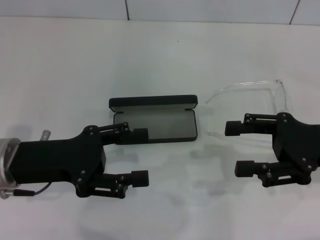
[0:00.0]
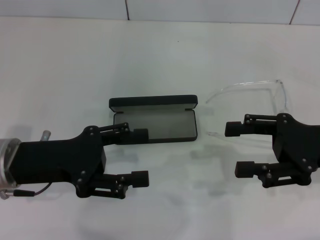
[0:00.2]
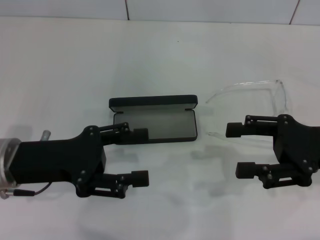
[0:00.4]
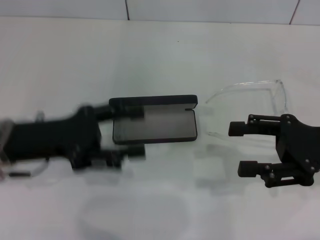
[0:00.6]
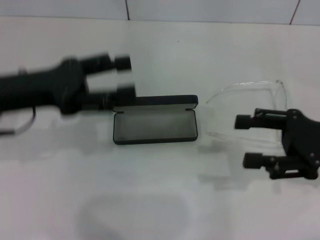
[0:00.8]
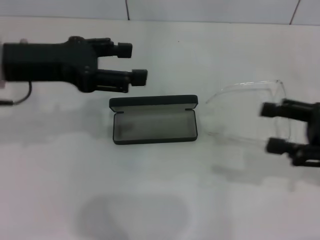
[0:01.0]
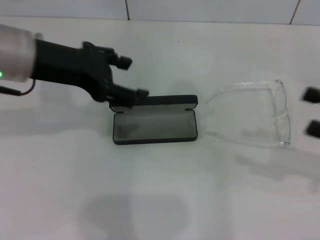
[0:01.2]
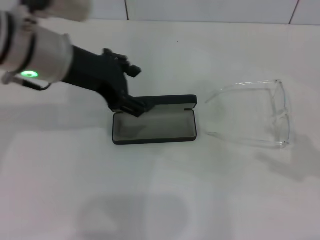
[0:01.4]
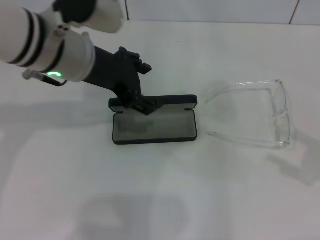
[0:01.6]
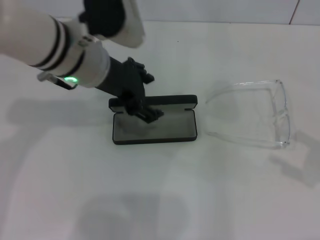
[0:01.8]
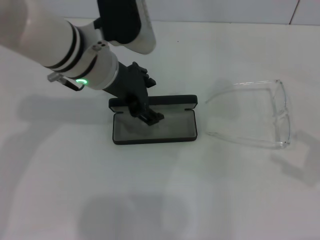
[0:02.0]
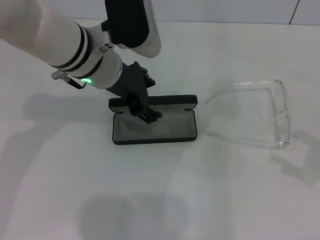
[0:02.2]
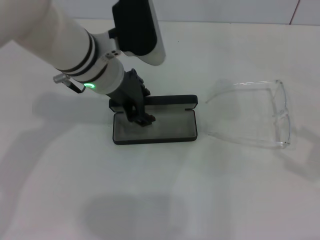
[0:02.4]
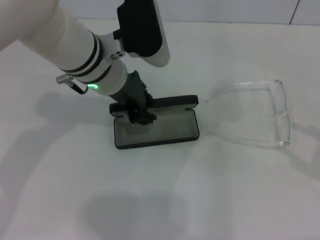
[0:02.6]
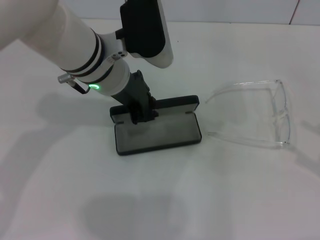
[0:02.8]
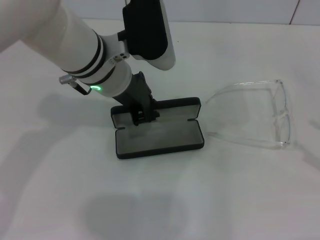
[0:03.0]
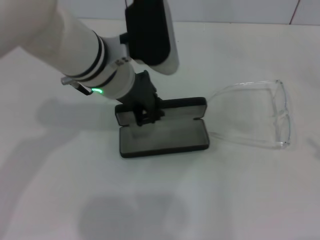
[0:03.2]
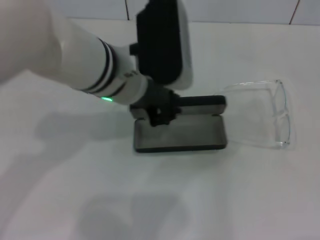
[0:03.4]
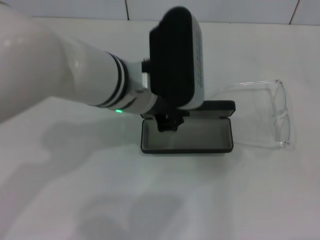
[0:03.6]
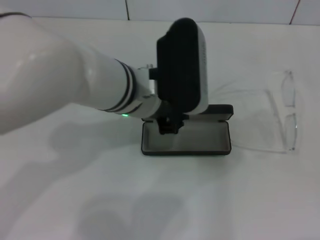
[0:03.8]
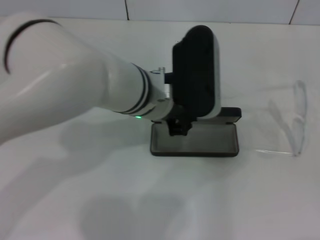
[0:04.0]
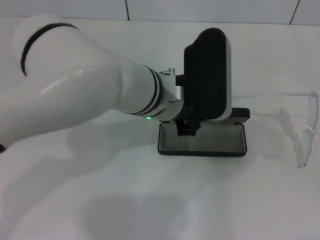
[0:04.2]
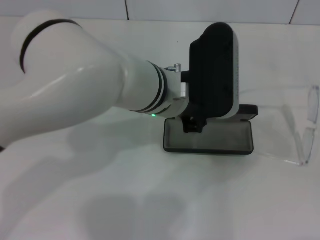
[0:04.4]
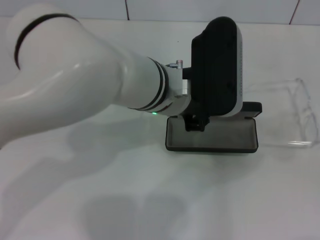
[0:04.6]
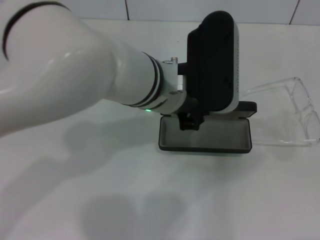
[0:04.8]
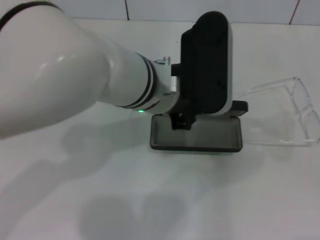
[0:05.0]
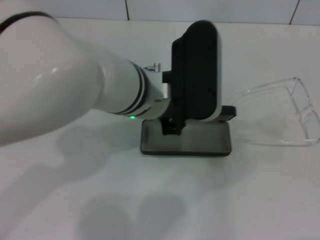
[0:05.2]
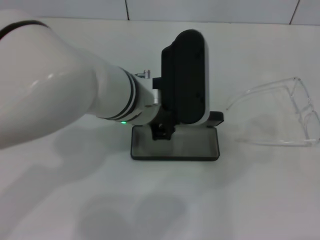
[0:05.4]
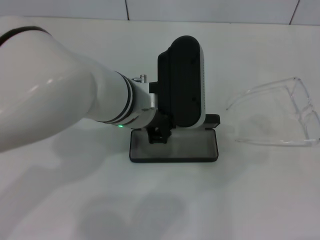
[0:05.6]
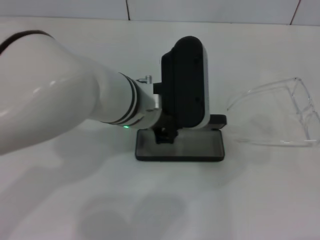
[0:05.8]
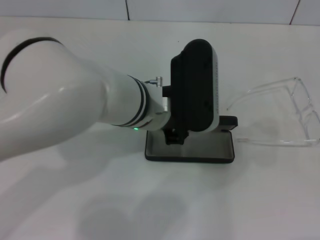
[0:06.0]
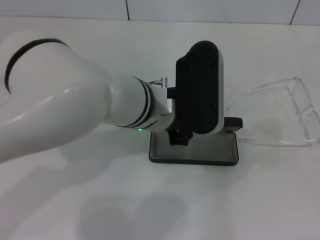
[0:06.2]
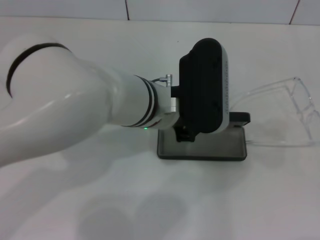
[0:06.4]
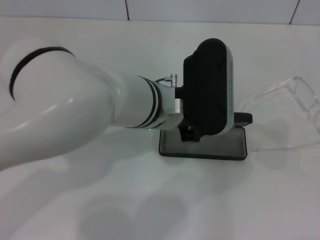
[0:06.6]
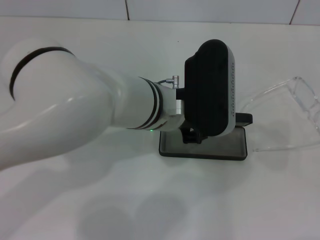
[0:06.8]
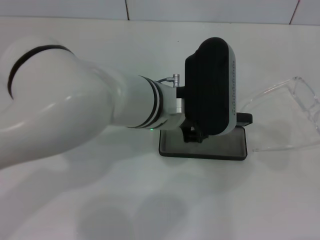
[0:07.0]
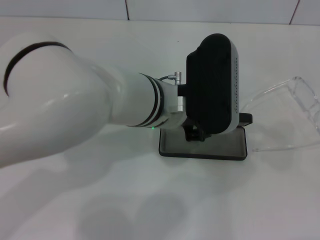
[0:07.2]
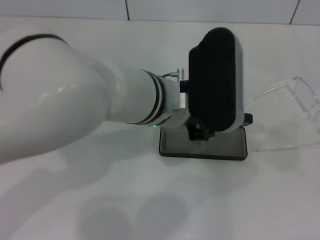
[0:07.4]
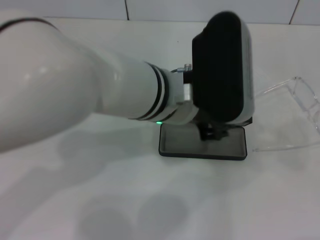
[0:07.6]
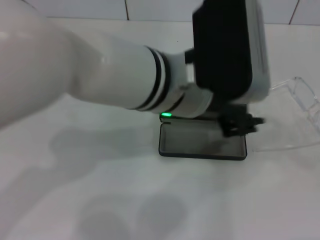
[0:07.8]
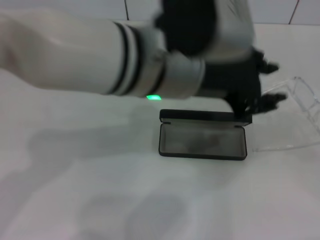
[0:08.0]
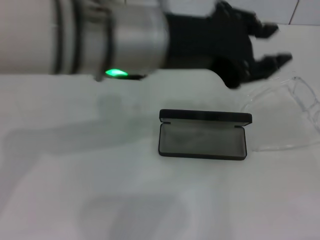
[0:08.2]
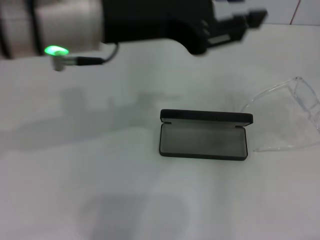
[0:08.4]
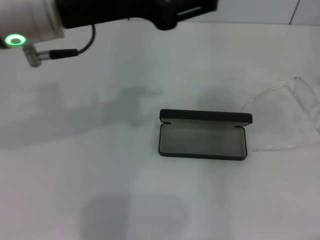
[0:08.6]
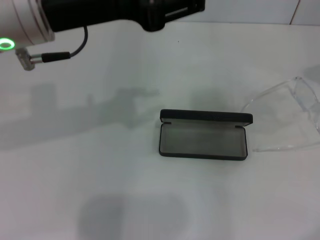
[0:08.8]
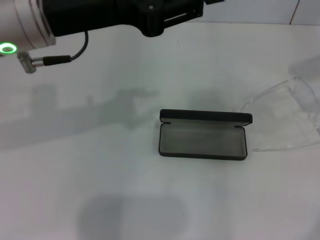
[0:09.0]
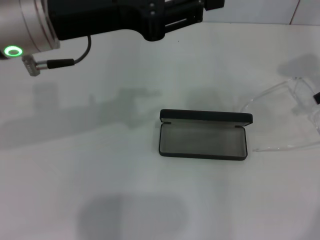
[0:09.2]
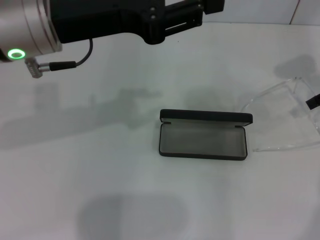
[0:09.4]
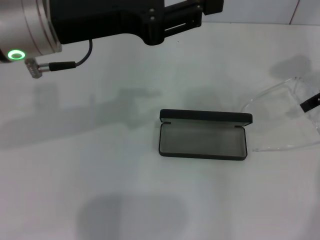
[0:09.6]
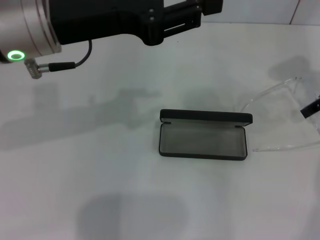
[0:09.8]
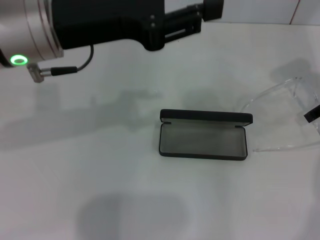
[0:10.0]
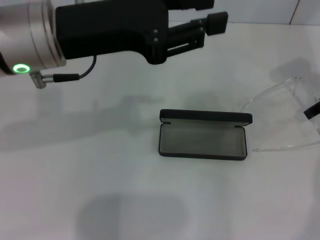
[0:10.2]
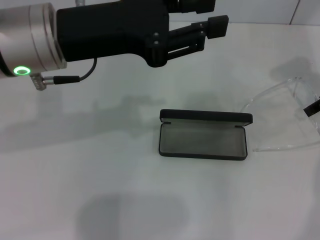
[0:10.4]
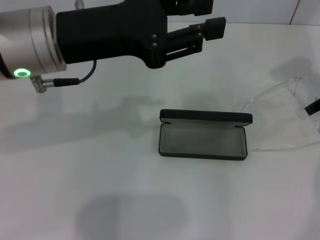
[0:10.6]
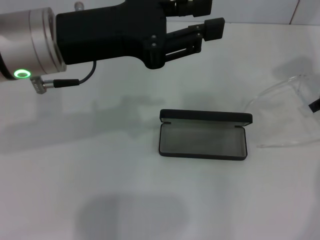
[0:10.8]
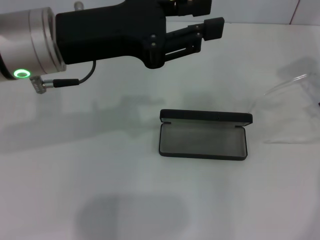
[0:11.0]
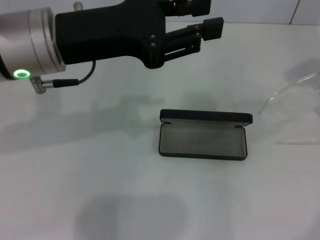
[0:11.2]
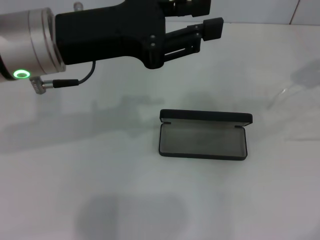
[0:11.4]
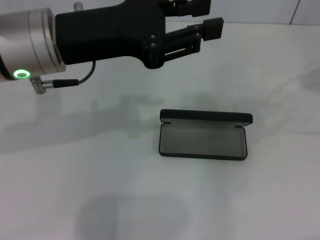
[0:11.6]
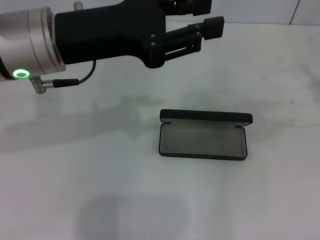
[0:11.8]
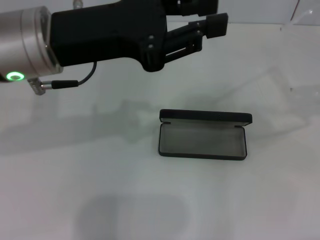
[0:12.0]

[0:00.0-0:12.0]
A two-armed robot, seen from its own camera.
Step, 0:00.0 to 0:02.8: Grab the glasses case with your left hand.
Step, 0:03.0 to 0:06.8: Place the glasses case in the center of the table with your left hand.
Step, 0:07.0 to 0:10.6: Grab the eyeglass frame with your right hand.
0:00.0 to 0:01.6: The right gripper is displaced to the right and backward by roughly 15 cm, while the left gripper goes approximately 15 cm upward, to the right and forward.
0:01.6 to 0:03.0: The left gripper changes place by roughly 5 cm, and closes up.
0:03.0 to 0:04.4: The left gripper travels to the right by approximately 5 cm, while the right gripper changes place by roughly 5 cm.
0:04.4 to 0:07.6: The grippers move only a little.
0:07.6 to 0:09.0: The right gripper travels forward and to the left by roughly 25 cm; the left gripper is displaced to the left and upward by approximately 15 cm.
0:09.0 to 0:10.4: The right gripper moves downward, approximately 5 cm.
0:10.4 to 0:12.0: The right gripper goes about 15 cm backward, upward and to the right, and closes up.

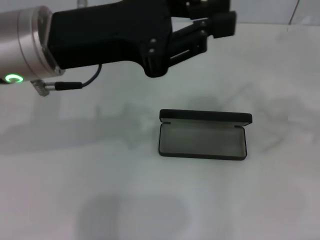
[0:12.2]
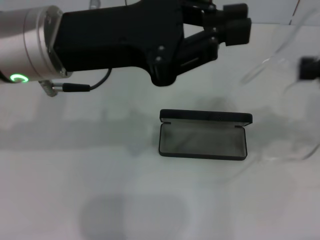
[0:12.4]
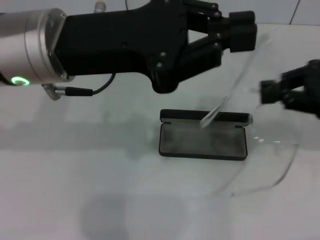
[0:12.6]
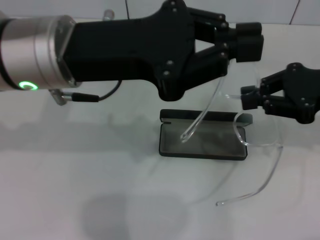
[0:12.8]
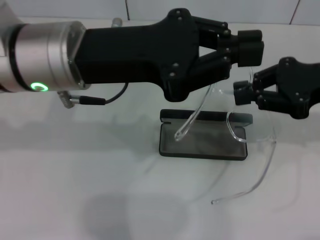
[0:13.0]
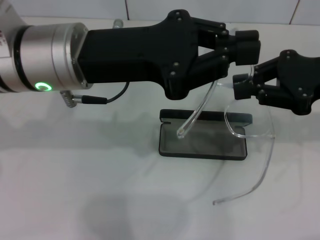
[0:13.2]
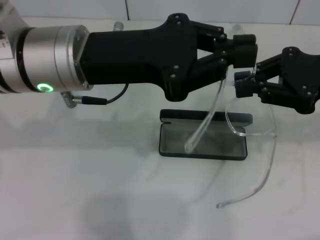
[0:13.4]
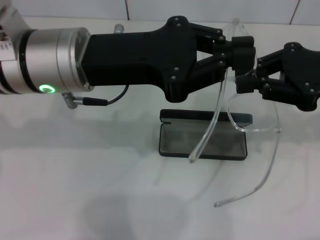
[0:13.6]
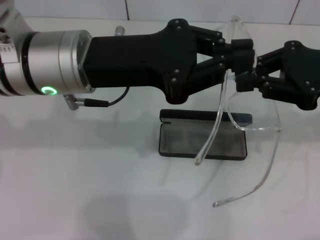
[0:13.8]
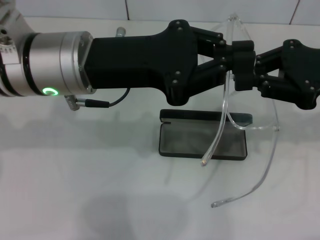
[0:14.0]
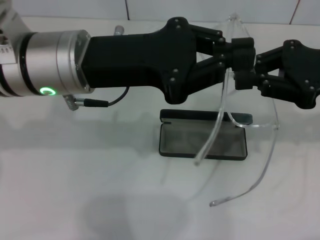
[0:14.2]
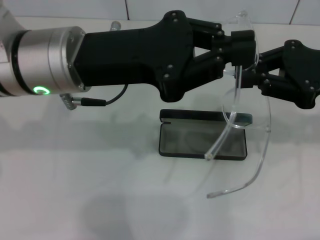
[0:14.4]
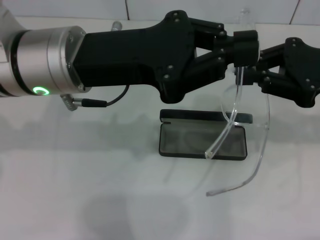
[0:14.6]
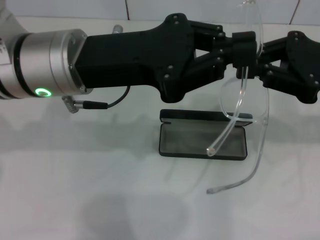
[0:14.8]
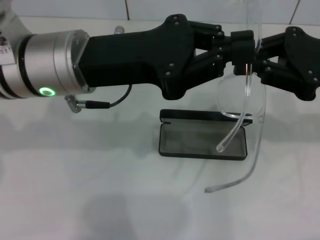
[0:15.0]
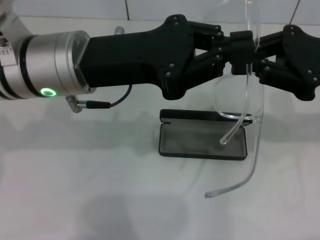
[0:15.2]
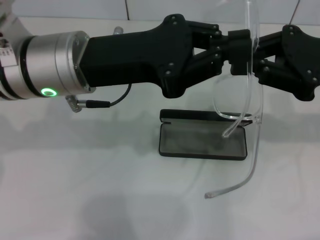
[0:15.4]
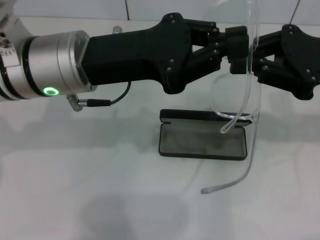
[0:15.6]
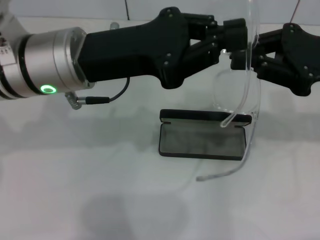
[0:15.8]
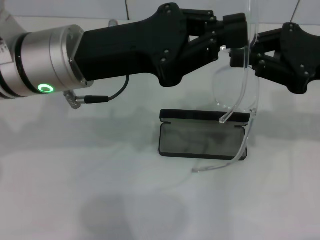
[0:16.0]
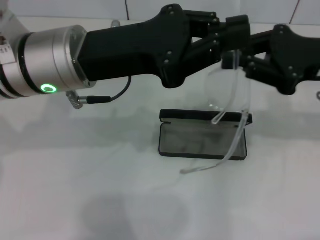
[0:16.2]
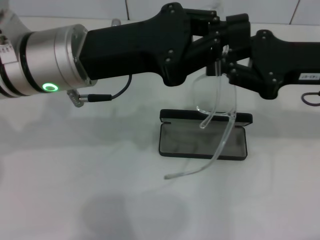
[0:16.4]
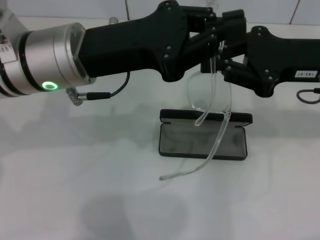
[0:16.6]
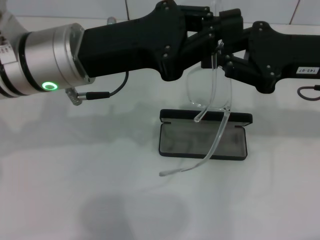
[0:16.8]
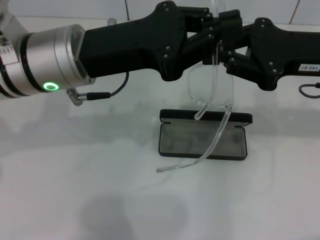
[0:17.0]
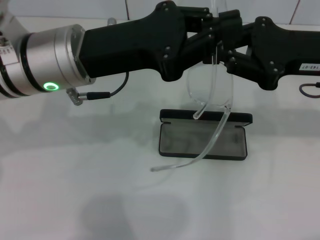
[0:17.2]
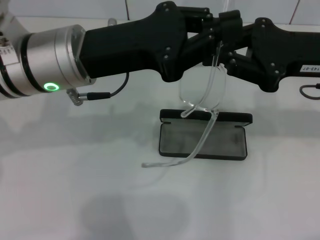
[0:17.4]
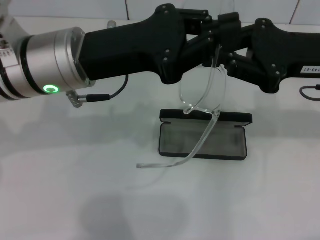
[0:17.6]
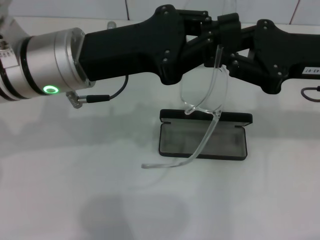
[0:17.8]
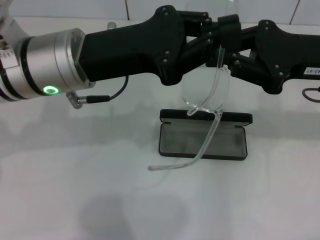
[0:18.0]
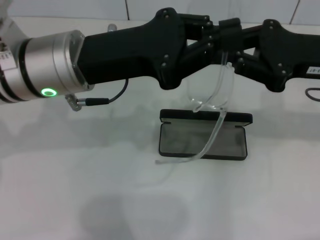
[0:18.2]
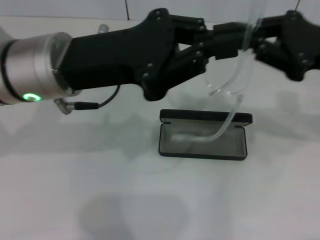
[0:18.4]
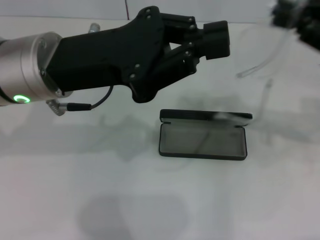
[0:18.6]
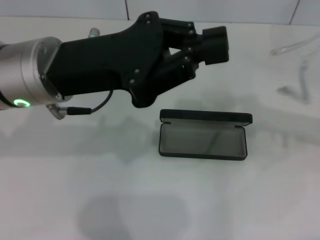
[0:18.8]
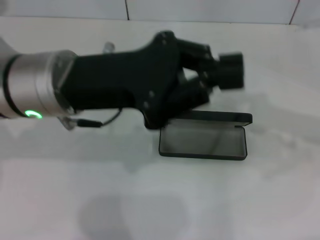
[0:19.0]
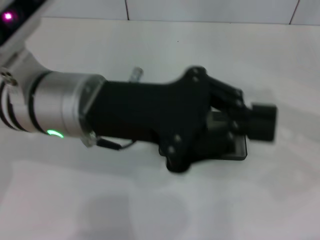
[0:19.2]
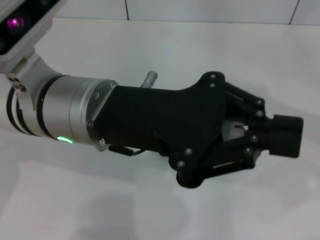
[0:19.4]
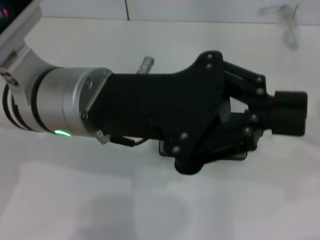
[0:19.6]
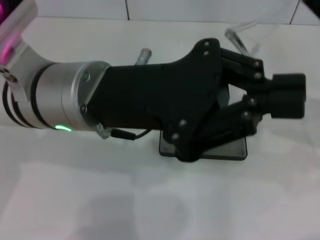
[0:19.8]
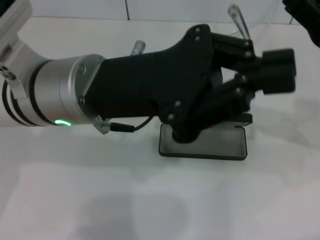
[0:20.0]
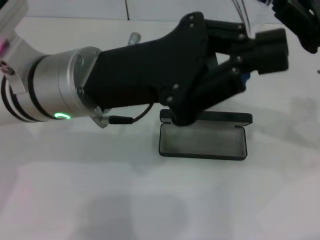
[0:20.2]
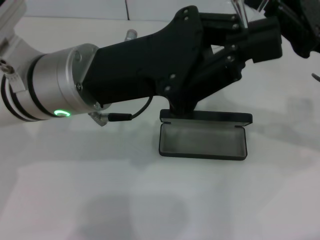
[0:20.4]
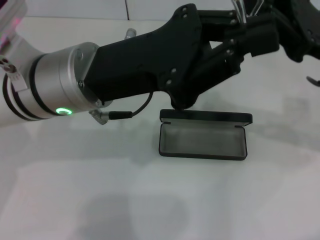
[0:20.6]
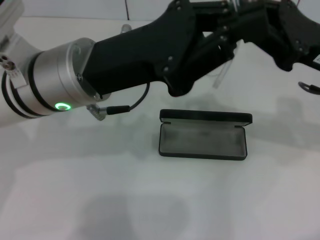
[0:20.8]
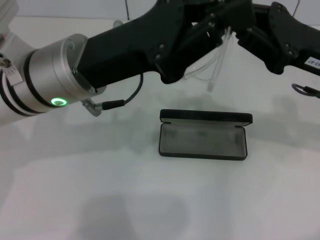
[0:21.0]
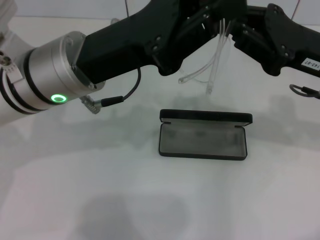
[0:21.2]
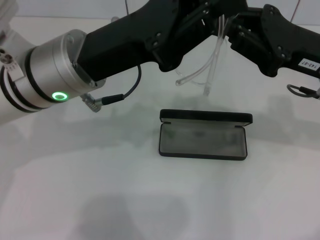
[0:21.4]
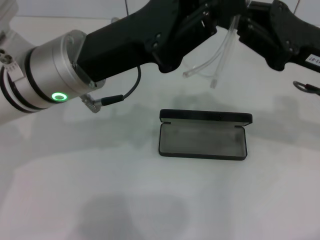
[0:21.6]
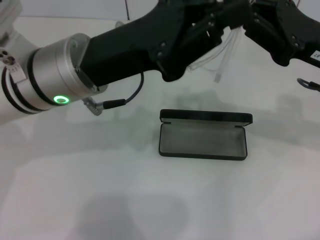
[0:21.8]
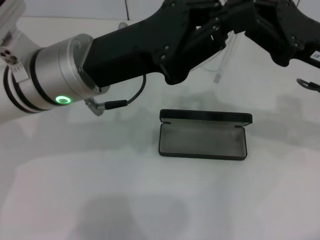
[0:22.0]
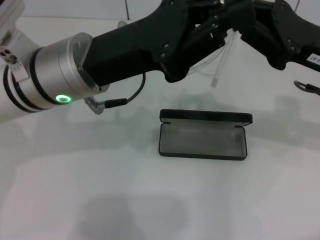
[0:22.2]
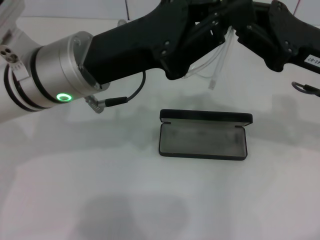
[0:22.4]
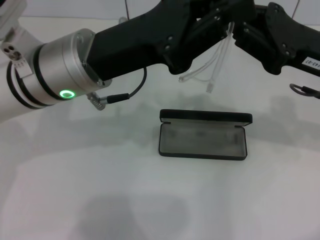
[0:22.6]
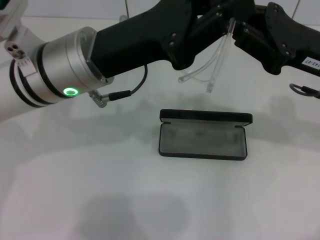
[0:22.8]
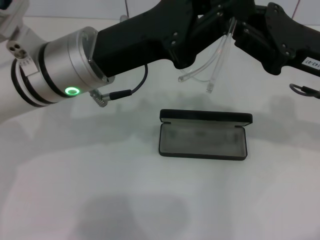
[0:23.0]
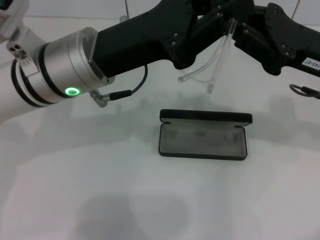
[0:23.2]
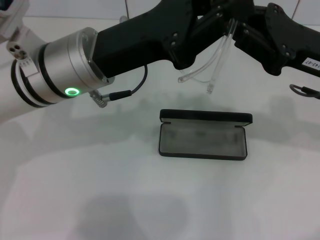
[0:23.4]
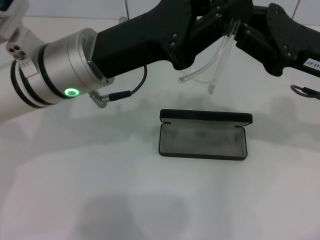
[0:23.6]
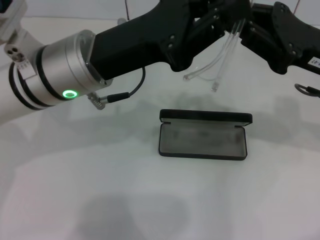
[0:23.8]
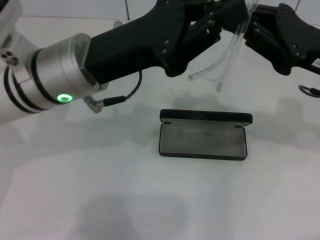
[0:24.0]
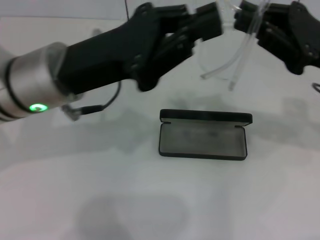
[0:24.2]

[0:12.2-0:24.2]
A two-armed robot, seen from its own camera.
Step, 0:12.2 to 0:21.2: Fold the frame with your left hand.
0:12.2 to 0:13.8: The right gripper travels to the left by roughly 10 cm.
0:13.8 to 0:16.6: The grippers stay close to where they were, moving slightly.
0:16.6 to 0:18.2: Both grippers stay put.
0:18.2 to 0:19.8: The right gripper travels to the right and back again, approximately 10 cm each way.
0:21.2 to 0:22.6: Neither gripper changes place.
0:22.6 to 0:24.2: The grippers stay close to where they were, moving slightly.
